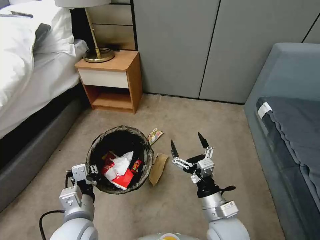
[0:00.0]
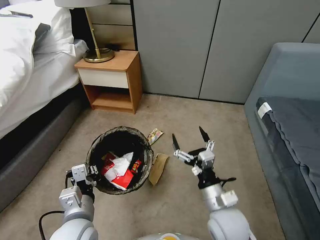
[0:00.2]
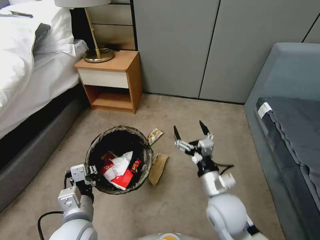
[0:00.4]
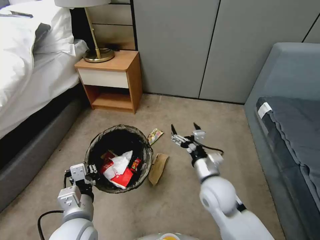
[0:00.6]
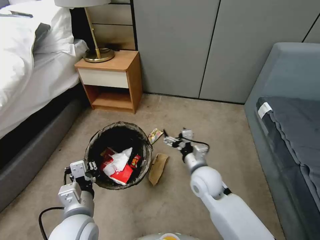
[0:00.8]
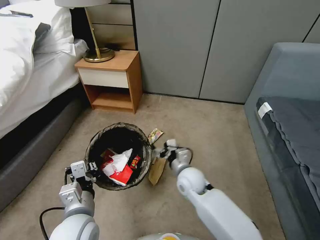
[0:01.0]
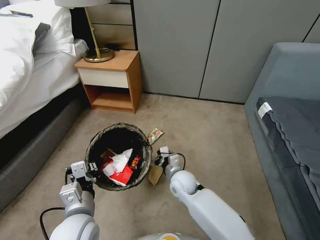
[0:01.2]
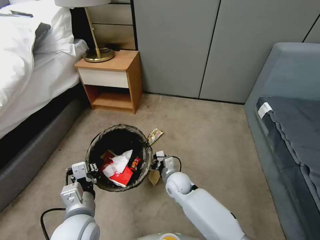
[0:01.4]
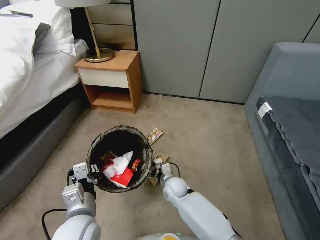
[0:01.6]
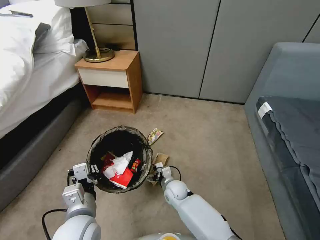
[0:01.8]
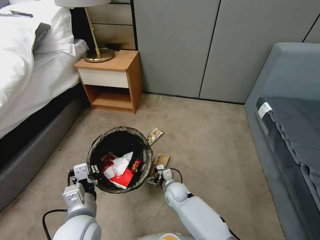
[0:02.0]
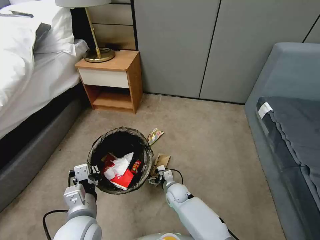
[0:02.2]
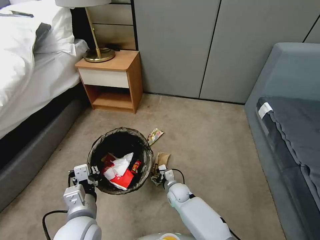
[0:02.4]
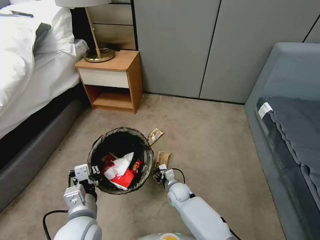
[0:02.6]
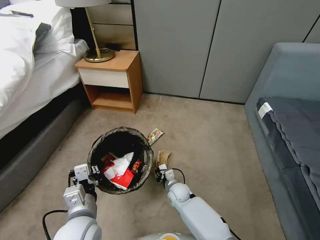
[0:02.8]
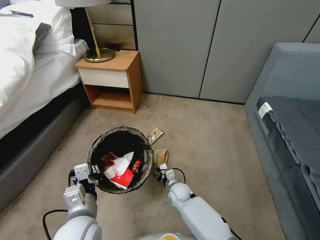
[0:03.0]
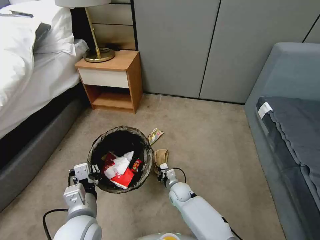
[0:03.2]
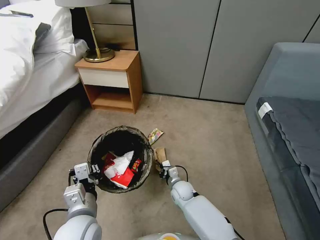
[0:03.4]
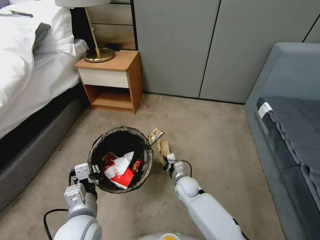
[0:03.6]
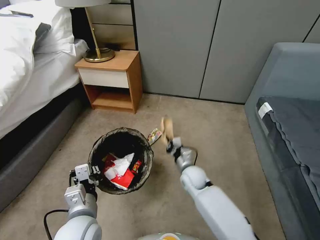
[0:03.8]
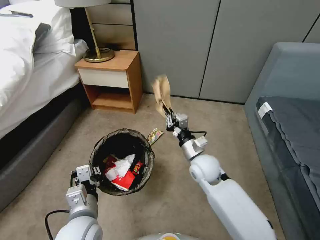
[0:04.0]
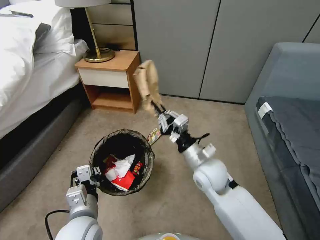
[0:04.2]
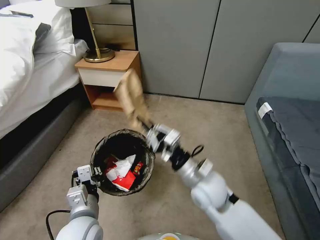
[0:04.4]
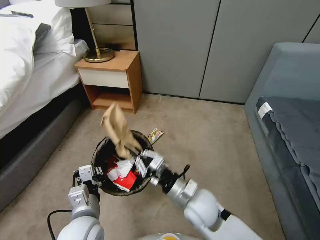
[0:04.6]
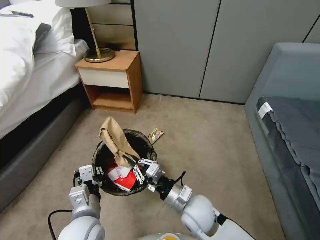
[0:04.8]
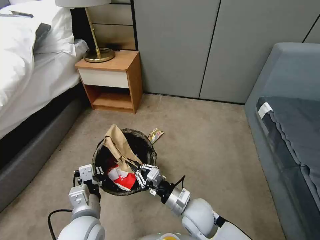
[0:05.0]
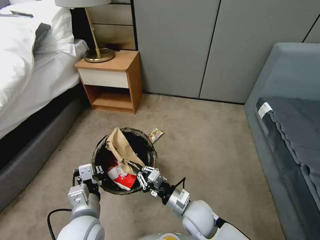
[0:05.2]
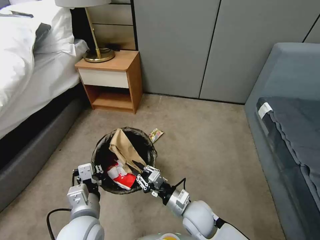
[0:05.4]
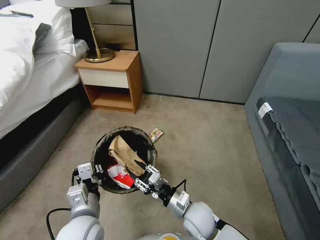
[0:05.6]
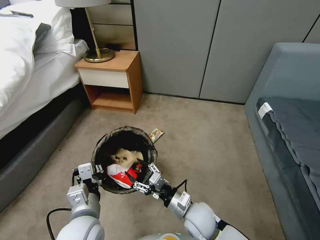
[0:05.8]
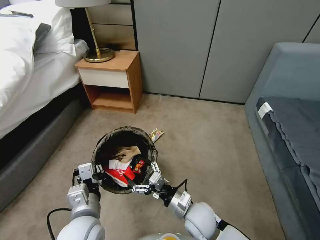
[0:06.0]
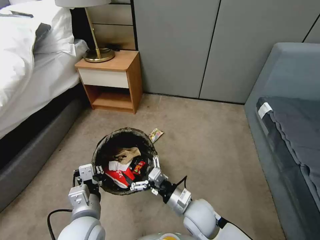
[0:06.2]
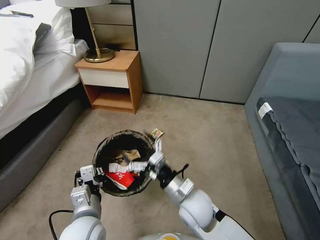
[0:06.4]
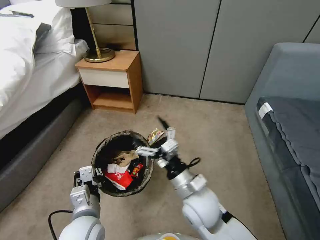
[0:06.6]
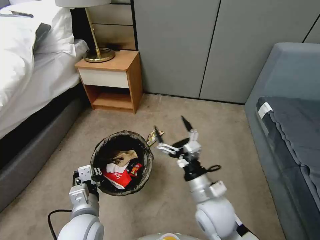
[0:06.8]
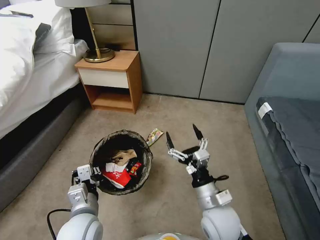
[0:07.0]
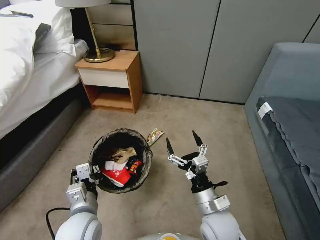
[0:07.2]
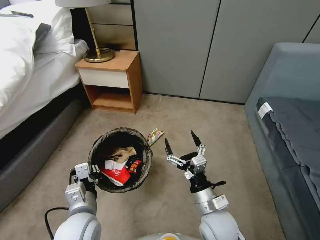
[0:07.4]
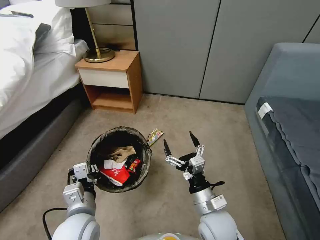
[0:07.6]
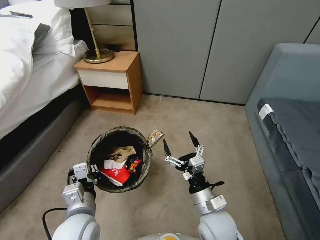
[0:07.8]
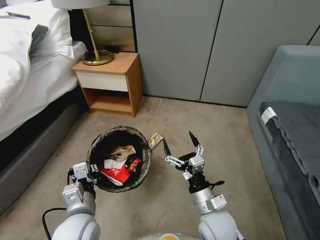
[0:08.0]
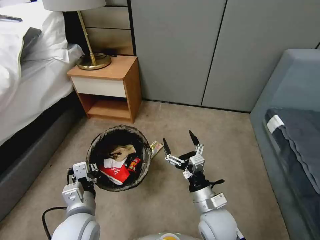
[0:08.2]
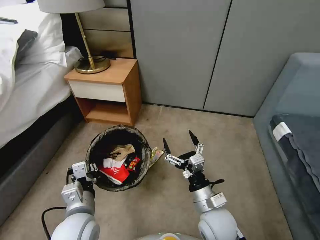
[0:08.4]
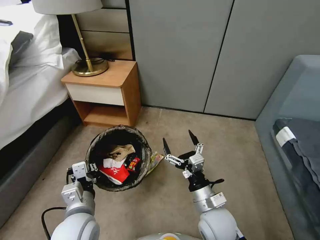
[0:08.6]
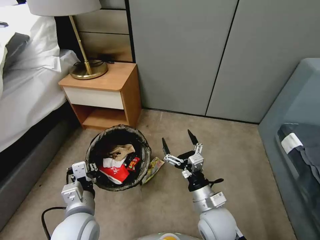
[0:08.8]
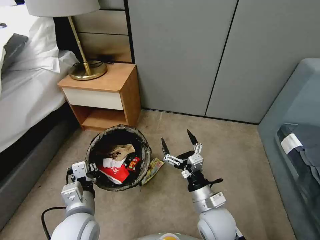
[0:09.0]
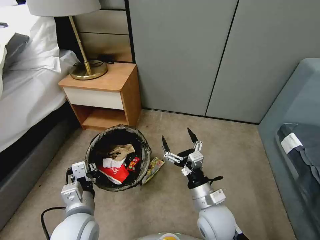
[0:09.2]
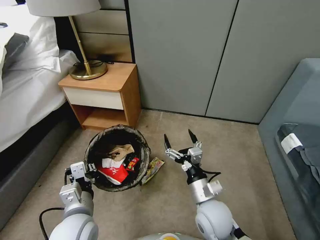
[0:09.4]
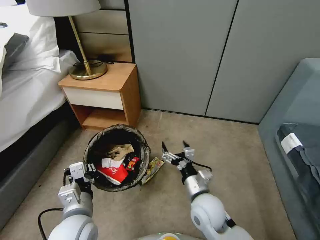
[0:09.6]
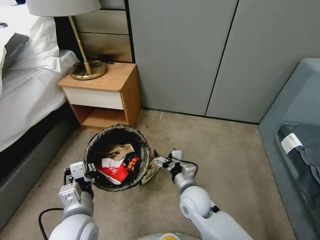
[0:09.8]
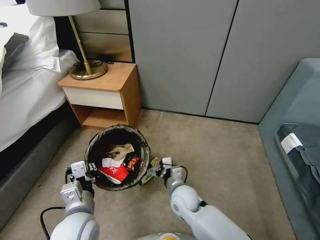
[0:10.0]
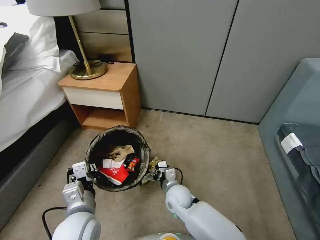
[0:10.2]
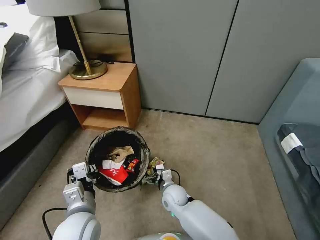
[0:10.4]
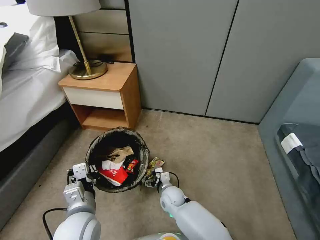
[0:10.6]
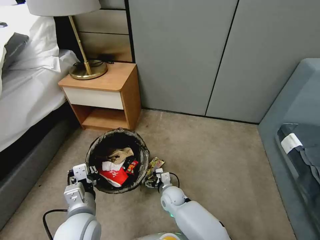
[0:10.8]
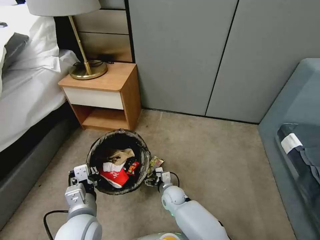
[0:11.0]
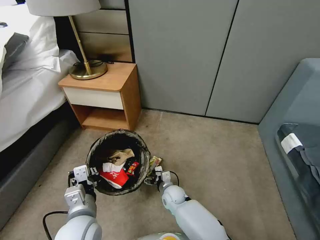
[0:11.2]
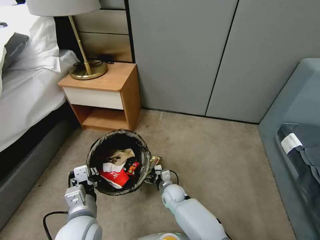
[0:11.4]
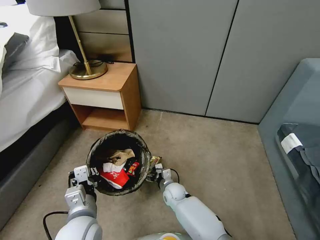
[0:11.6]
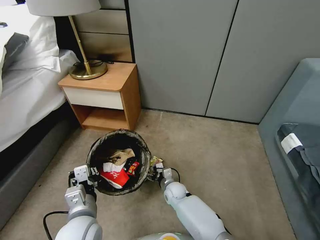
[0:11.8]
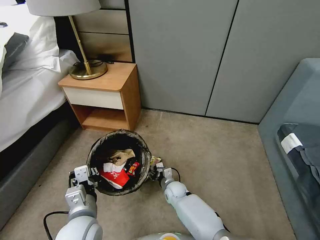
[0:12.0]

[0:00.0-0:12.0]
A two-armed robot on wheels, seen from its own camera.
Task of the whole recording: Pick up the trash bin, then pick up the garbage from the floor and place it into the trash bin.
0:00.0 to 0:01.6: The right gripper travels forward, downward and to the left by roughly 25 cm.
0:01.6 to 0:03.0: The right gripper shifts about 5 cm downward, and closes its fingers.
0:03.0 to 0:04.4: The right gripper is displaced upward by about 25 cm.
0:04.4 to 0:06.0: The right gripper moves downward, some 10 cm, and opens its fingers.
0:09.0 to 0:10.4: The right gripper goes roughly 20 cm downward, forward and to the left.
0:10.4 to 0:12.0: The right gripper shifts roughly 5 cm downward, and closes its fingers.

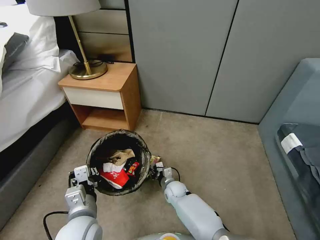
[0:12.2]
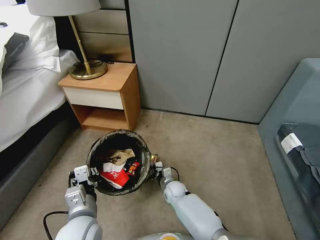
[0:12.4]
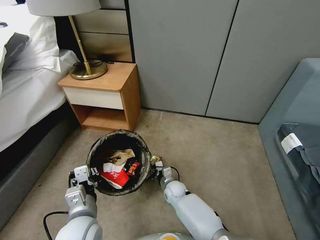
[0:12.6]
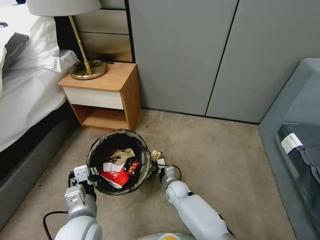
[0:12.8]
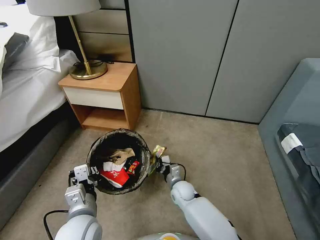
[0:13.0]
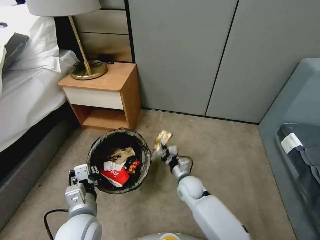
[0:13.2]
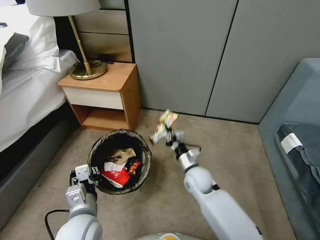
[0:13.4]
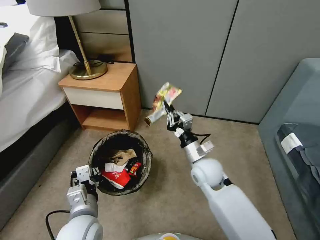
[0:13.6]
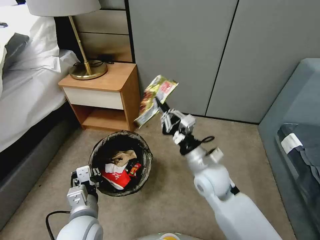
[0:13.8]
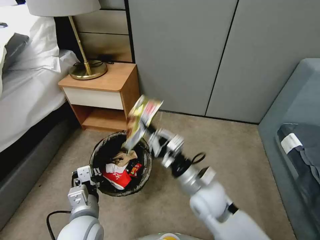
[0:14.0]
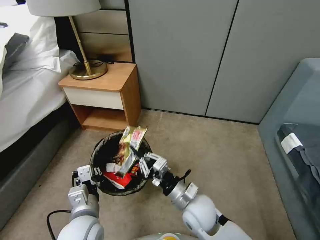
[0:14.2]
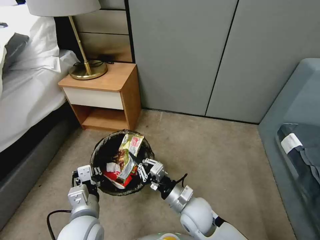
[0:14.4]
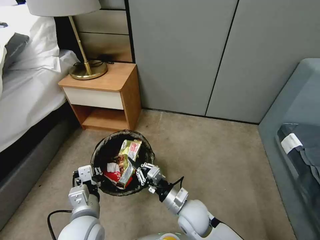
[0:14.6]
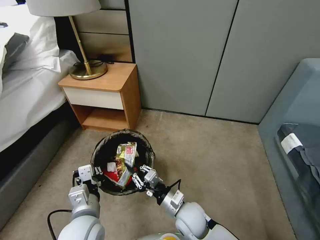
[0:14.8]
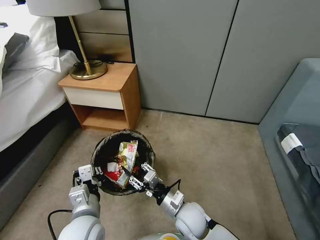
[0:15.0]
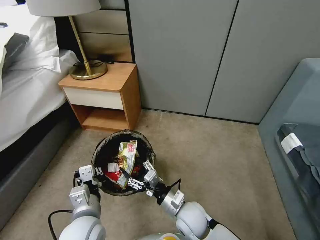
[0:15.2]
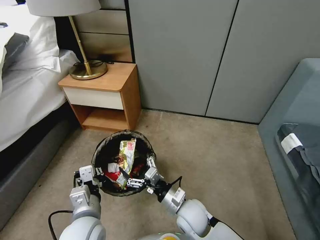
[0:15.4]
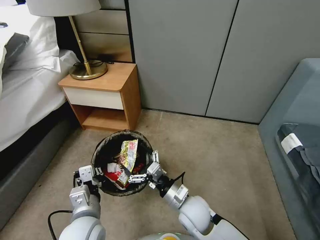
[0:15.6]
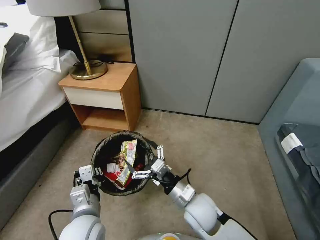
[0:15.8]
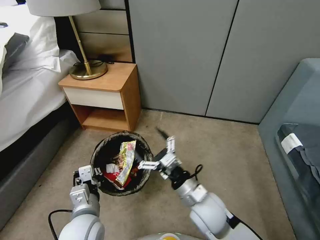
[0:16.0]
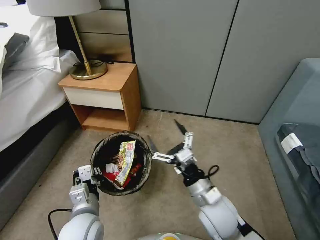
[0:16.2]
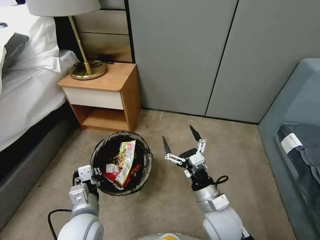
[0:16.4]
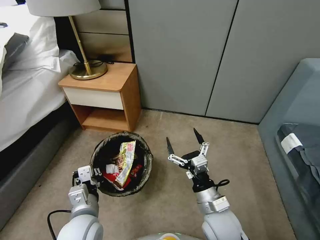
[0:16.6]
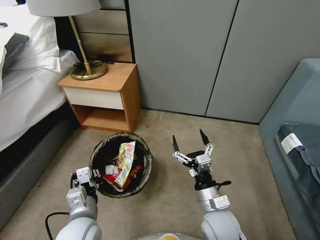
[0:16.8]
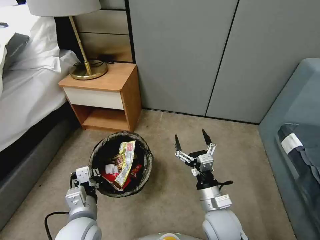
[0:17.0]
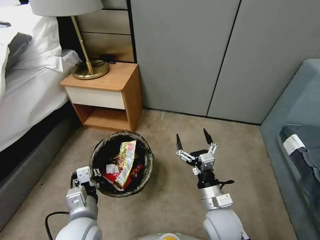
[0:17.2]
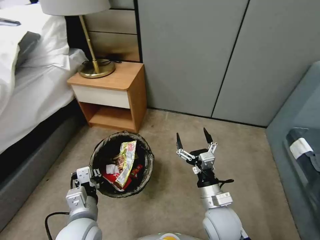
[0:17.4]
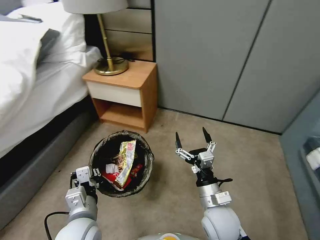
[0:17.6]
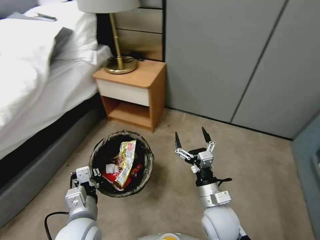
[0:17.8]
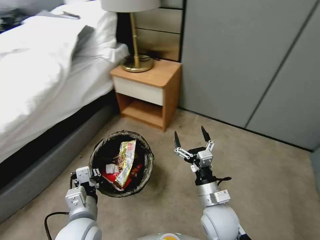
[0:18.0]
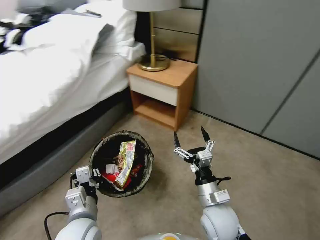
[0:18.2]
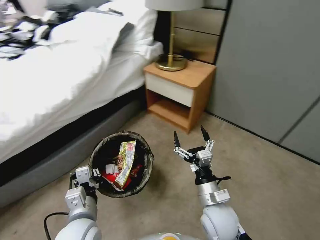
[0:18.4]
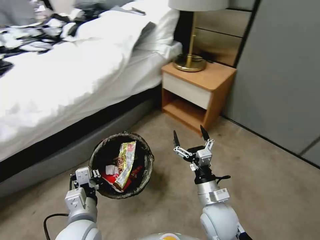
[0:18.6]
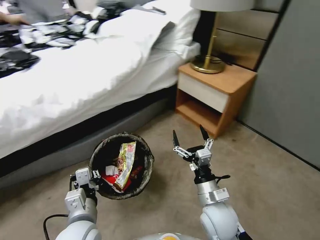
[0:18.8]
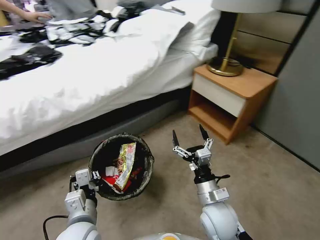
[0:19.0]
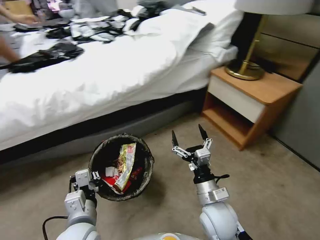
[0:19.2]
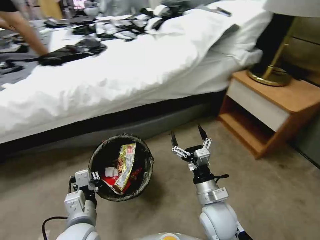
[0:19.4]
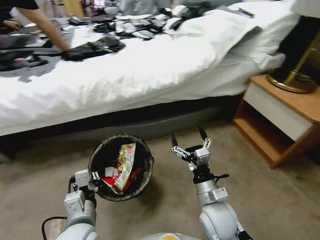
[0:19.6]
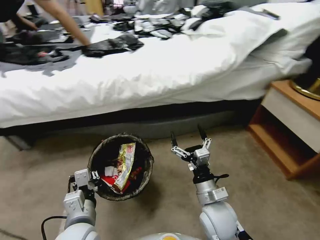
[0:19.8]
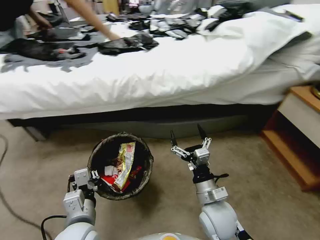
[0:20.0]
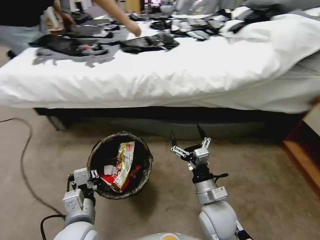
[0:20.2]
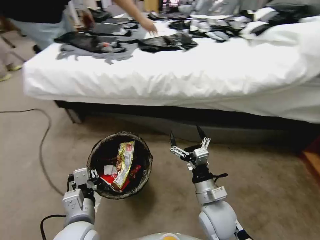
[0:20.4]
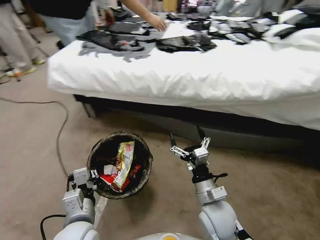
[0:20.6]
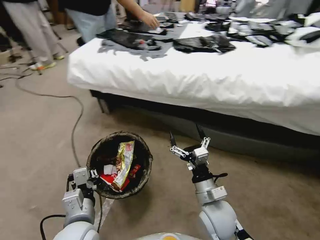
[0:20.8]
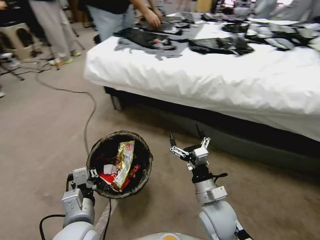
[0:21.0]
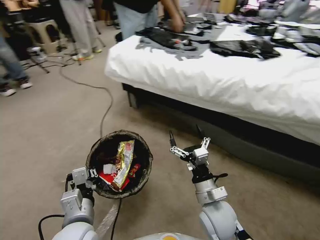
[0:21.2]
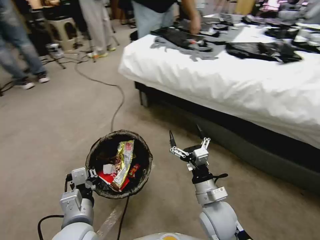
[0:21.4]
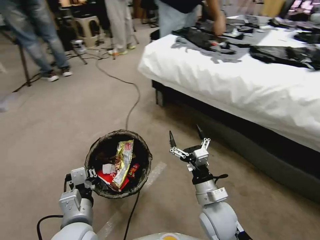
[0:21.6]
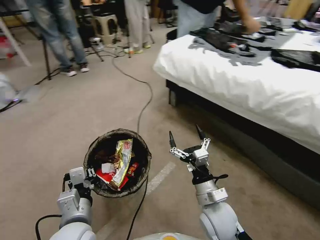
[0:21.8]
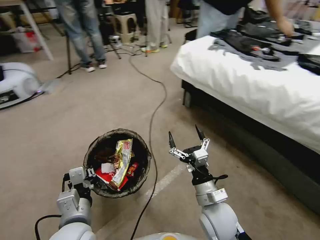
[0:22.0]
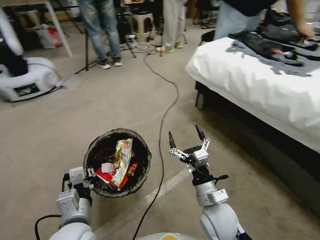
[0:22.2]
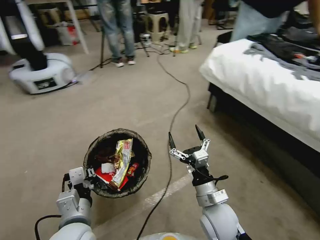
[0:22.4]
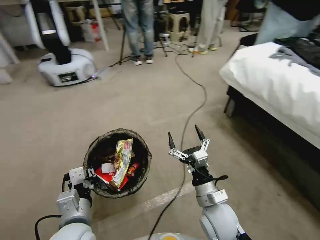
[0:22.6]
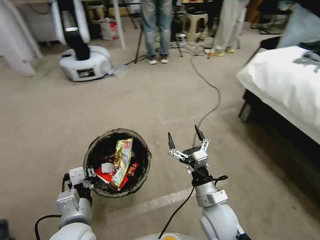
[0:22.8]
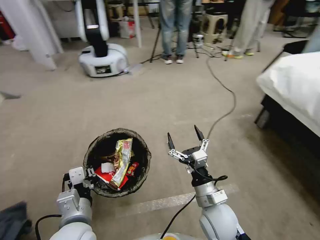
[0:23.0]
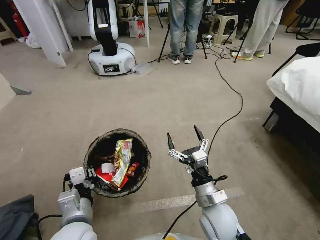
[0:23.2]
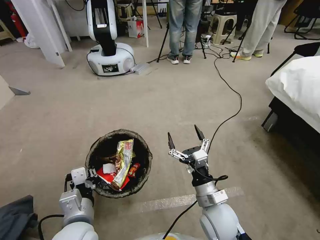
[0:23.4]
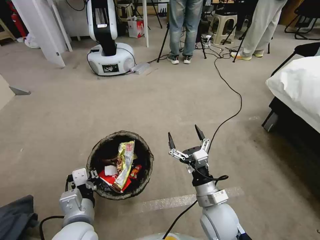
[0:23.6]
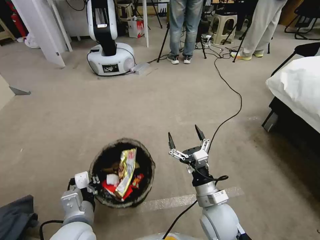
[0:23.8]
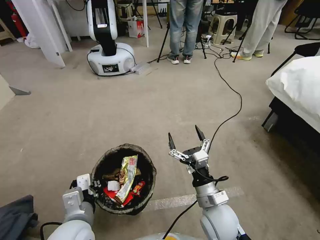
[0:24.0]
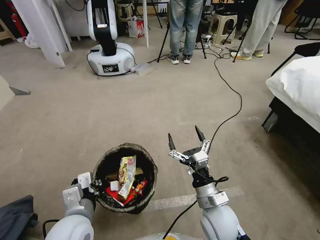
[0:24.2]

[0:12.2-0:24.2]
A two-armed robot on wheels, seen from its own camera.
Task of the whole recording: Pick up the trash bin, then pick up the garbage from the floor and place it into the trash bin.
0:12.2 to 0:13.8: The right gripper shifts about 30 cm upward, and closes.
0:13.8 to 0:15.2: The right gripper shifts about 15 cm downward and backward, and opens its fingers.
0:15.2 to 0:16.6: The right gripper shifts approximately 10 cm to the right and upward, and opens its fingers.
